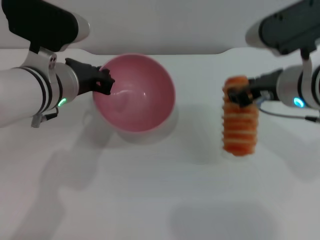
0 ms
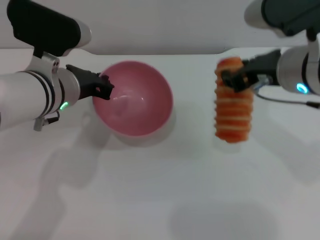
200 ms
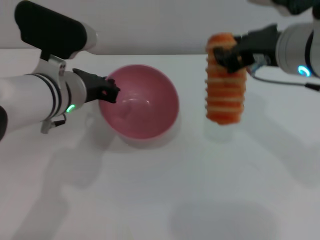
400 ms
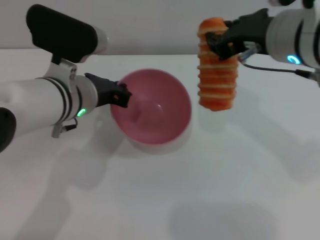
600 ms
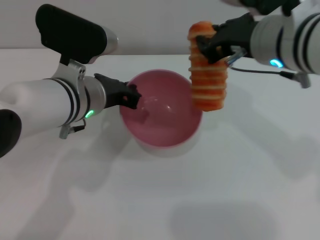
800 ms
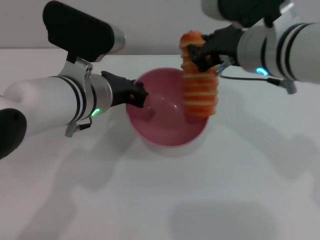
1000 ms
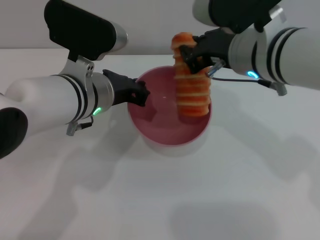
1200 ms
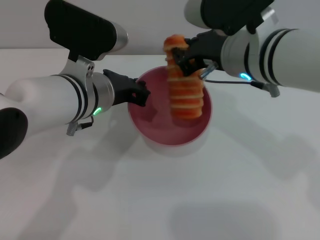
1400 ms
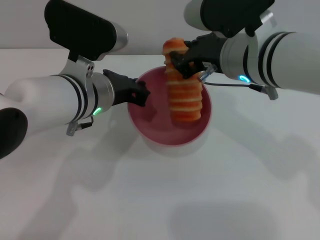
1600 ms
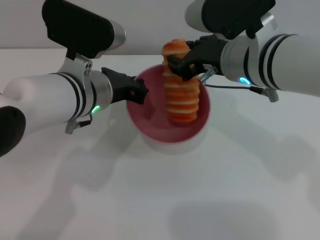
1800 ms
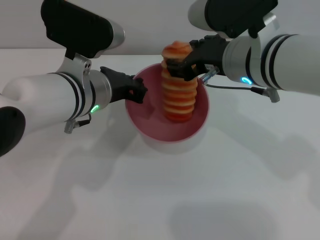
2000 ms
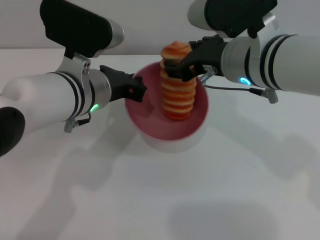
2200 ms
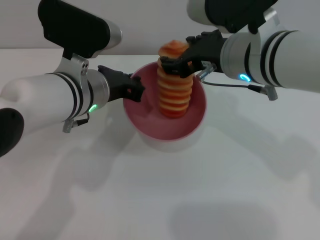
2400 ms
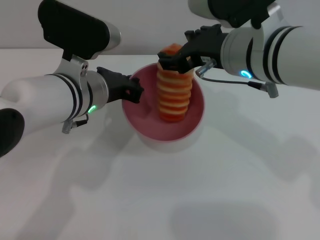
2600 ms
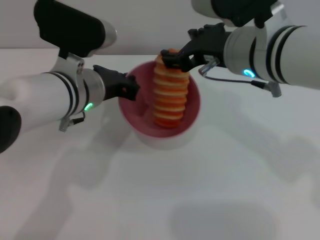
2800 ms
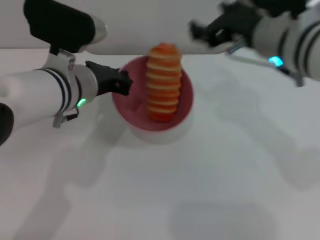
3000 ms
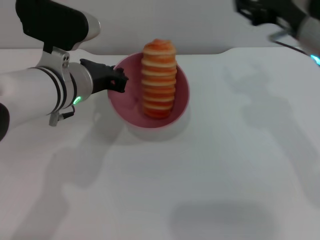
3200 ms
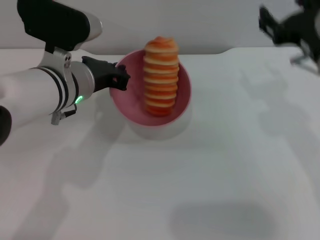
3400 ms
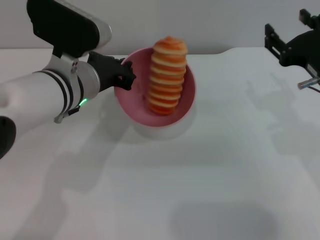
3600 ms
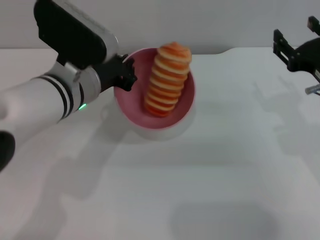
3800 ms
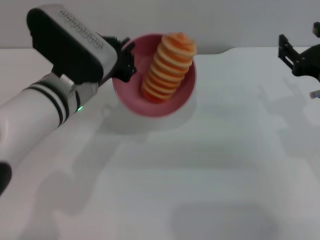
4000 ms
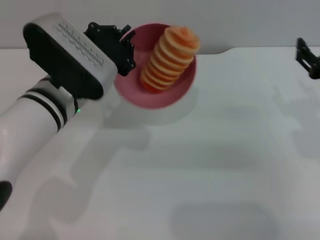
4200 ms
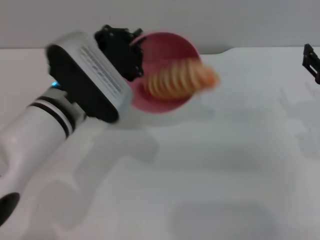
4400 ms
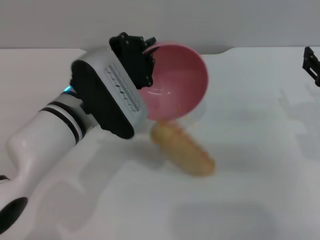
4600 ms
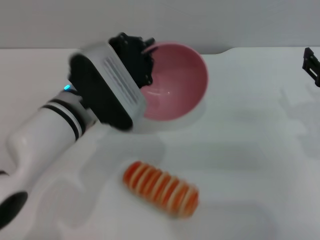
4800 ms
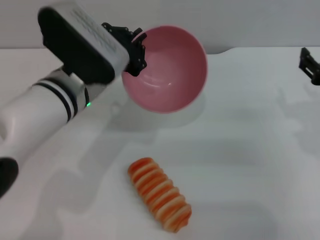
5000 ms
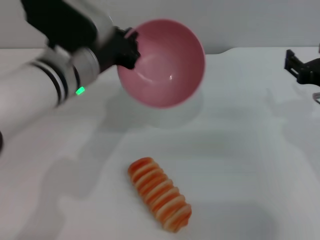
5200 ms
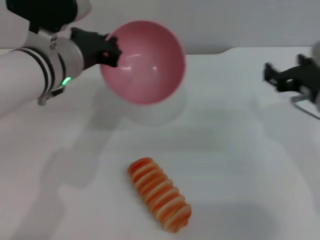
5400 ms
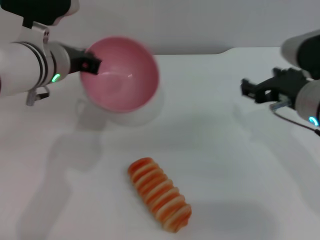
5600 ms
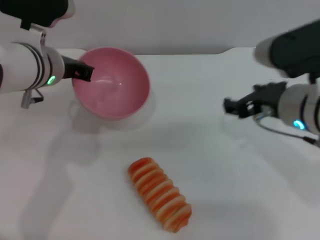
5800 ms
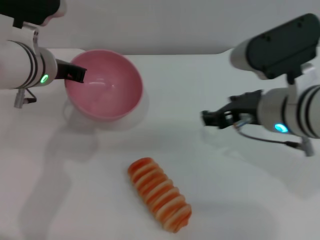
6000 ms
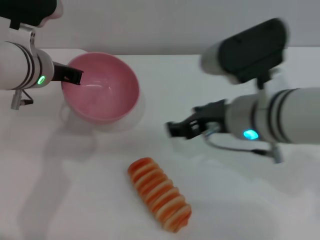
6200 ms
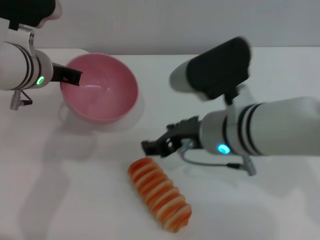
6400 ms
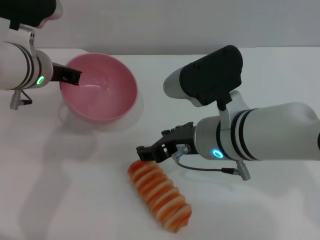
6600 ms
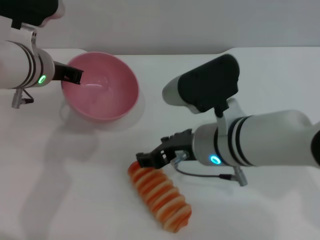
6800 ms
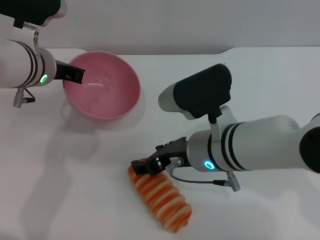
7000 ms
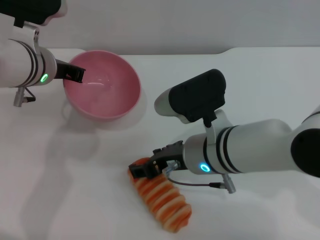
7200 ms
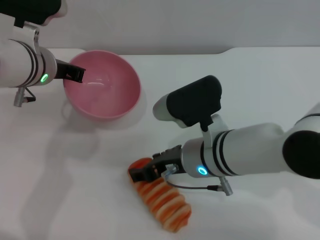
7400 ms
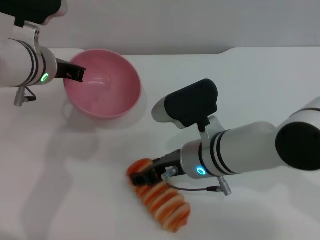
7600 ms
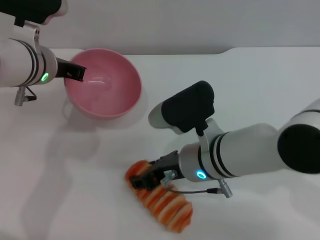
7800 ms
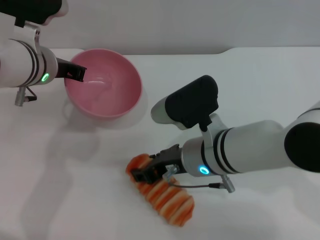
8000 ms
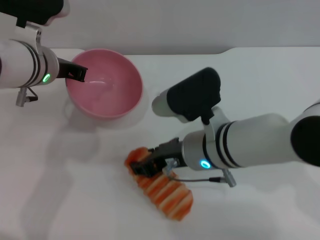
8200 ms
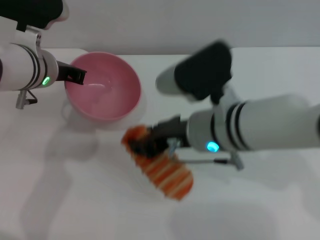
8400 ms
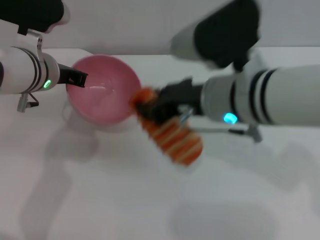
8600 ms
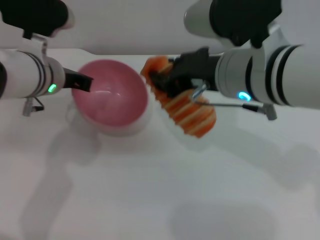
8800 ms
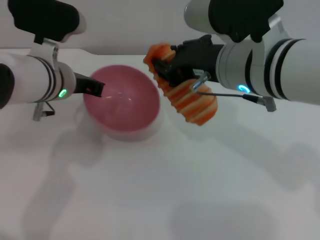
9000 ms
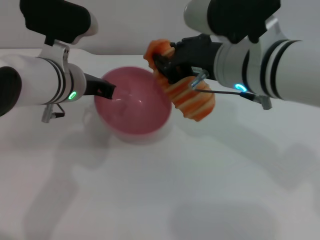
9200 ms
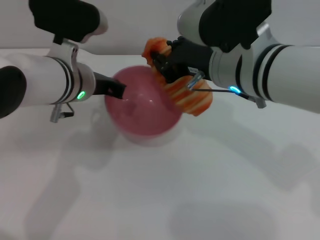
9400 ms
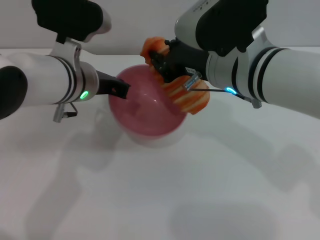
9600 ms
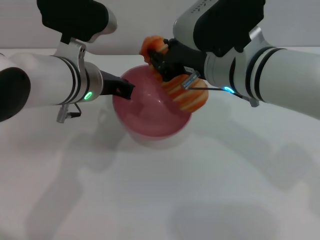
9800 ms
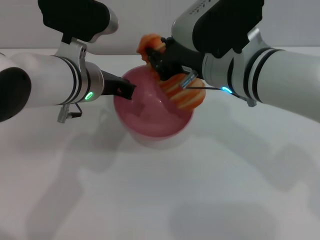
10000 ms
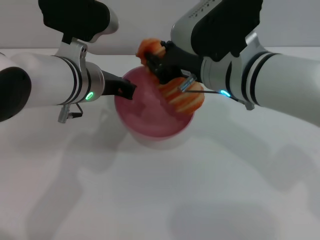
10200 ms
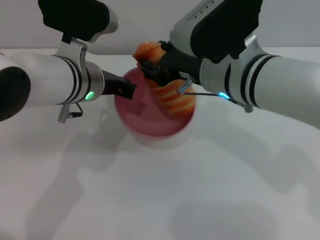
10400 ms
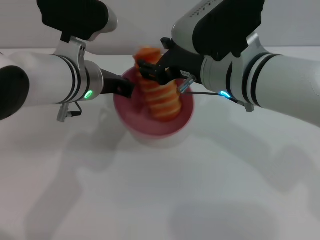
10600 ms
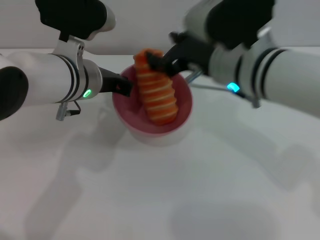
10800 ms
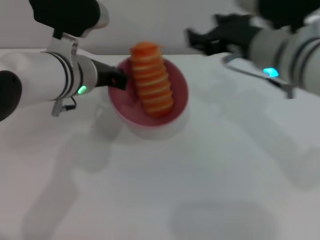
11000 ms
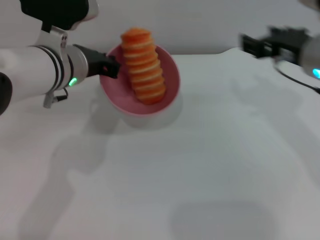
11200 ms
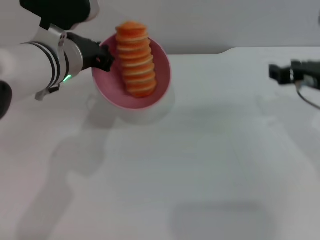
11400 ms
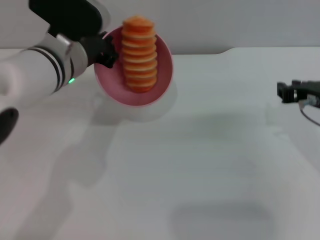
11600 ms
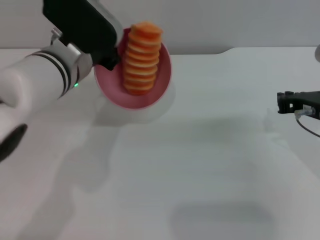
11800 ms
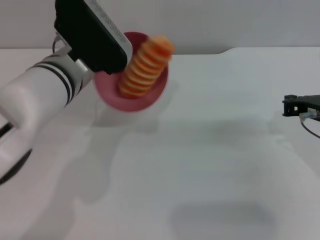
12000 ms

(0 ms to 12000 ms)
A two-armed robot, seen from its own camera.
Task of the whole recording: put the bread into the pink bowl and pour it out repeatedly.
Step, 0 ms - 3000 ms: Place the bread into the bowl.
Step, 3200 ms - 5600 ms: Pour the bread out of the bowl.
Step, 6000 ms - 8200 ms: Pick up the bread with the right gripper.
Step, 8600 ms - 11000 ms: Place the bread into the bowl.
0 ms - 1600 ms: The right gripper heads to the left, covering some 5 cm.
1600 ms - 3000 ms: The right gripper opens up.
3000 ms - 4400 ms: The right gripper travels to the right and downward by about 15 cm.
4400 ms - 6000 ms: The left gripper heads forward and to the left, covering approximately 10 cm. The right gripper goes some 15 cm to the left.
6000 ms - 7600 ms: The right gripper heads downward and to the left, covering roughly 10 cm.
7600 ms - 9000 ms: The right gripper shifts some 15 cm upward, and closes.
10400 ms - 12000 ms: The right gripper is displaced to the right by about 15 cm, and opens, then closes again.

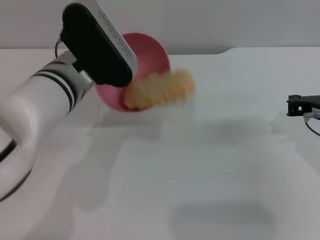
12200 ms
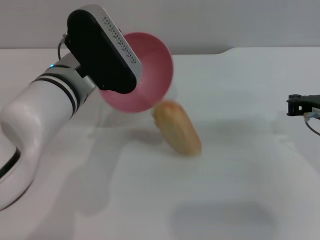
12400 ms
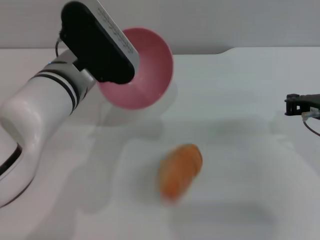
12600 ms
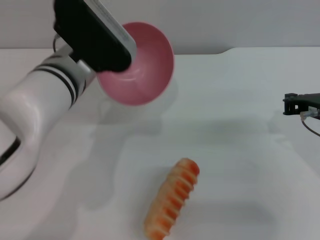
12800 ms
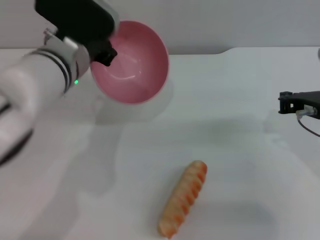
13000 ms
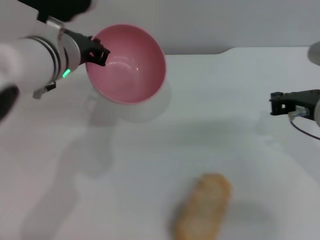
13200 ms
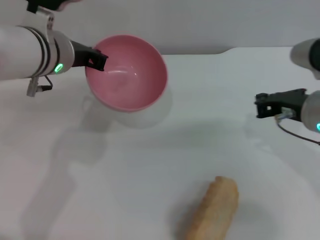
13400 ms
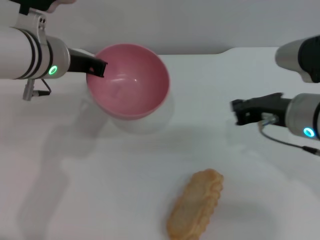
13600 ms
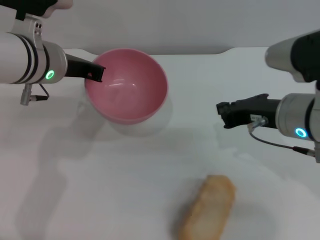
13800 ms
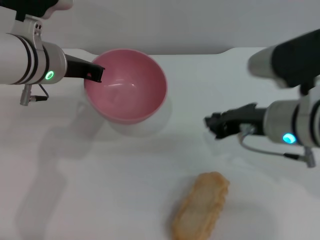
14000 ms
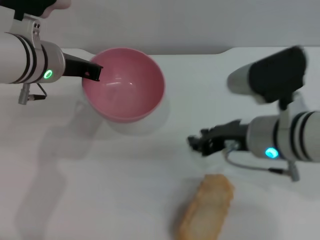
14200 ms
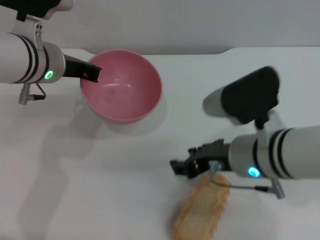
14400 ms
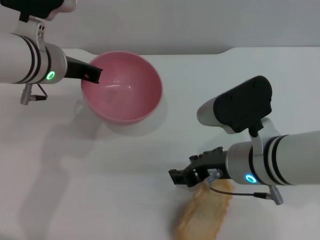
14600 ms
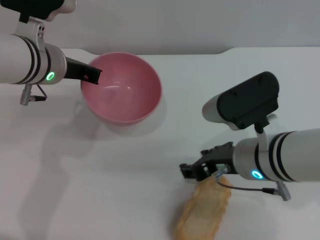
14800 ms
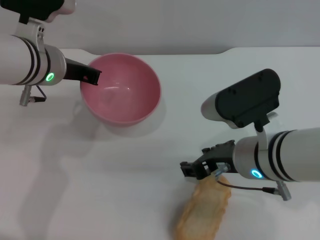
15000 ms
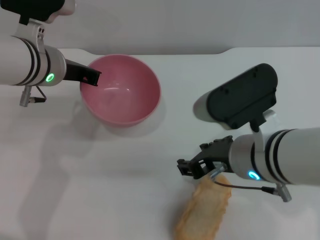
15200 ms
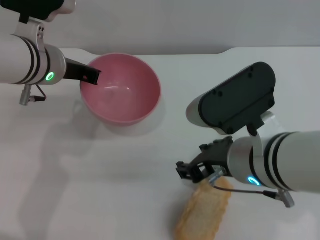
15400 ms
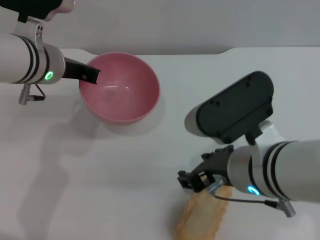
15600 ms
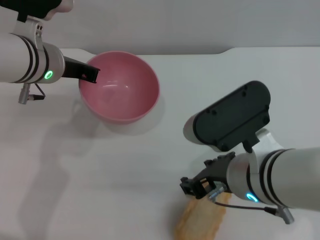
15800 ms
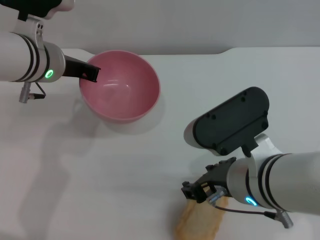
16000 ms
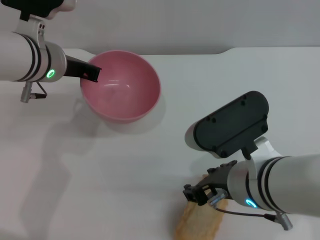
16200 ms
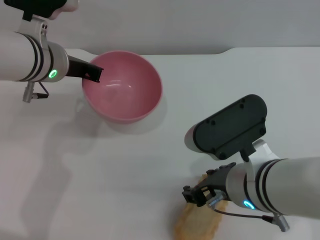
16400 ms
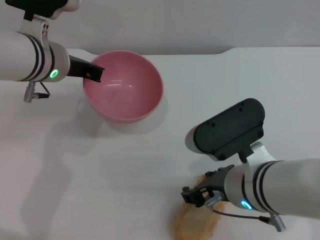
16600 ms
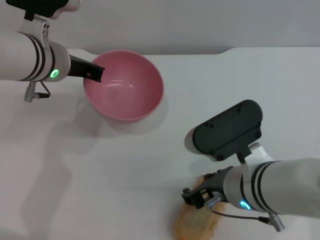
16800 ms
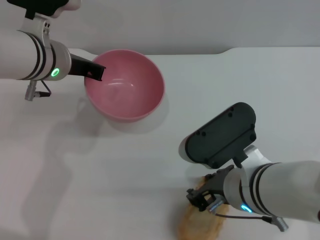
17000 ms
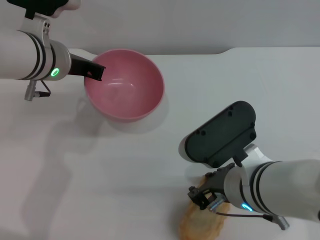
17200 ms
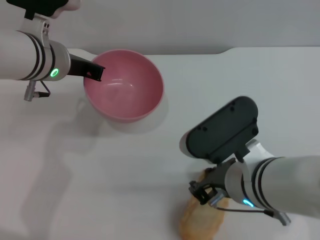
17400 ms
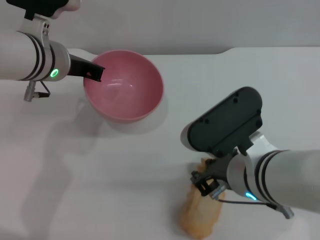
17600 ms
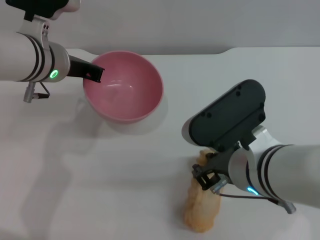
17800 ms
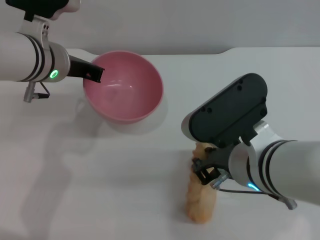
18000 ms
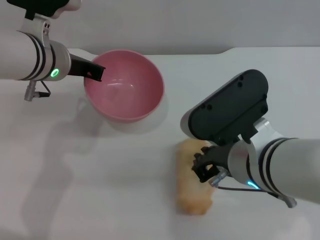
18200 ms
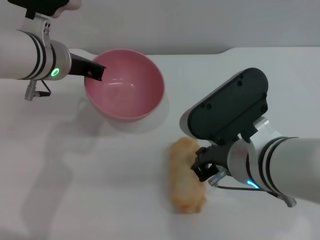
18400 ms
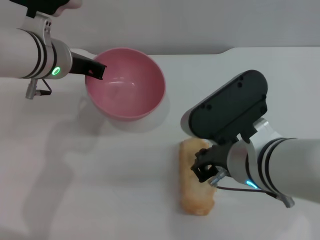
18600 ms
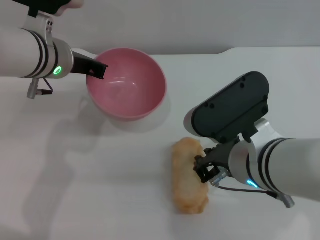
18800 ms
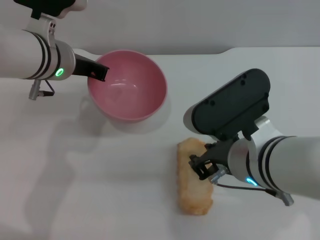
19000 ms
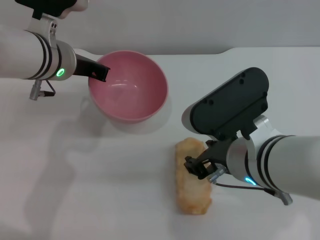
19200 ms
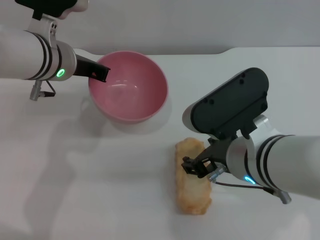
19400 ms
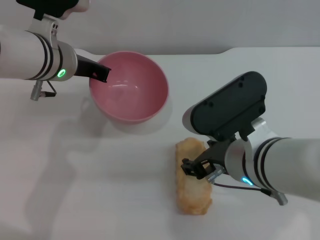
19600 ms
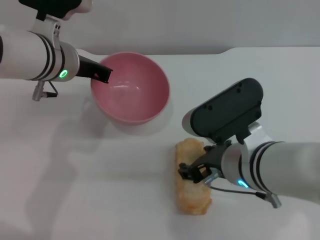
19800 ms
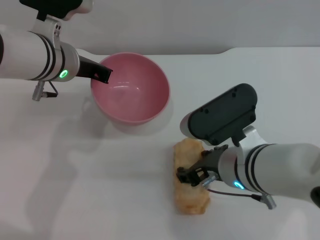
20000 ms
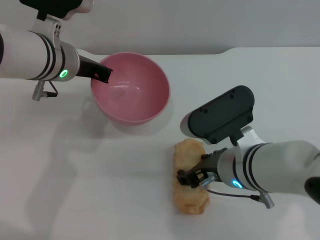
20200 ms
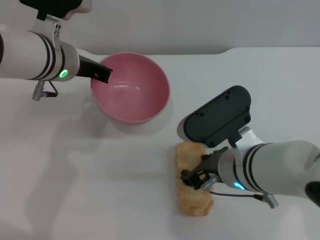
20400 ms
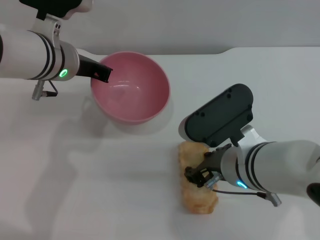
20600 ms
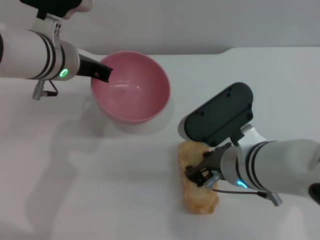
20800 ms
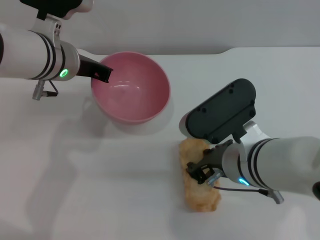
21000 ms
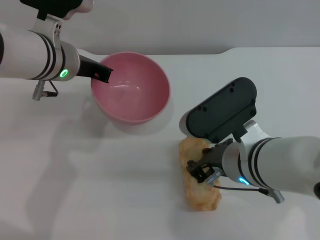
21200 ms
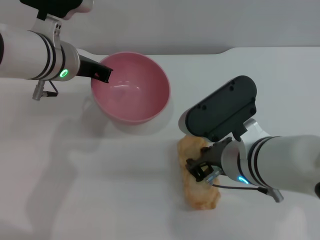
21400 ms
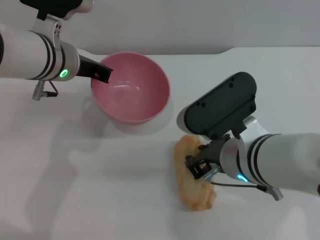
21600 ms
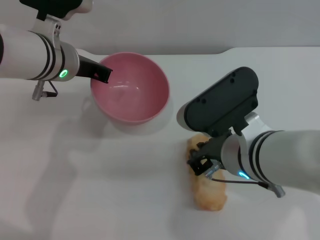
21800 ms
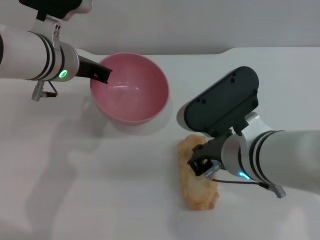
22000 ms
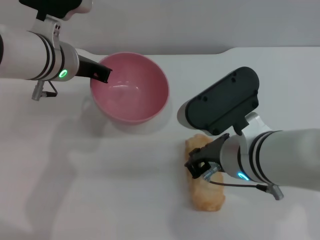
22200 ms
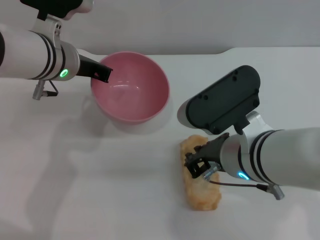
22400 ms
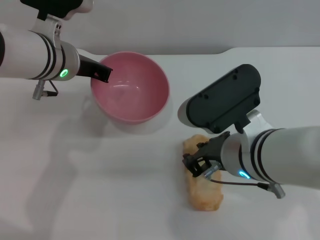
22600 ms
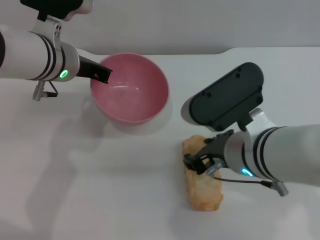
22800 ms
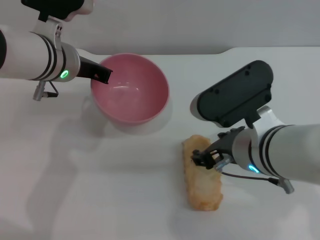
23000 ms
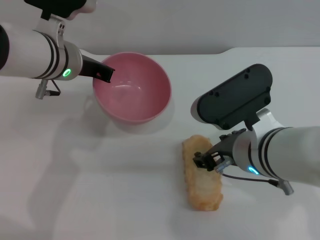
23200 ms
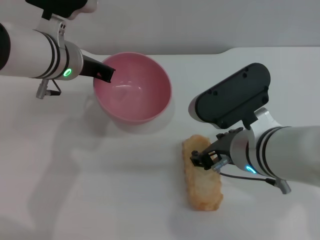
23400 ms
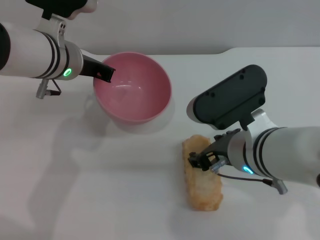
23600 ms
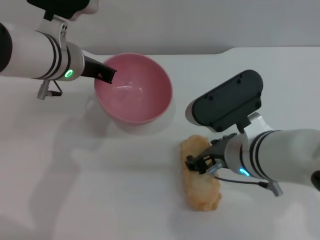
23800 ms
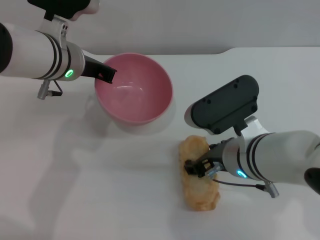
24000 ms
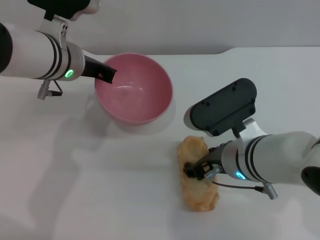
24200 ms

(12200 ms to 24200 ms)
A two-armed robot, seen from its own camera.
Task of the whole recording: put the bread into the pink bowl and pour it out repeatedly.
12200 ms - 13800 ms: The left gripper ends up some 5 cm from where it was, while the right gripper heads to the left, covering about 5 cm.
13800 ms - 15200 ms: The right gripper shifts roughly 5 cm to the left, and opens its fingers.
16600 ms - 18200 ms: The right gripper closes its fingers.
18200 ms - 19800 ms: The right gripper opens its fingers.
19800 ms - 21200 ms: The right gripper closes.
21200 ms - 22600 ms: The grippers move only a little.
22600 ms - 24200 ms: The right gripper opens its fingers.
